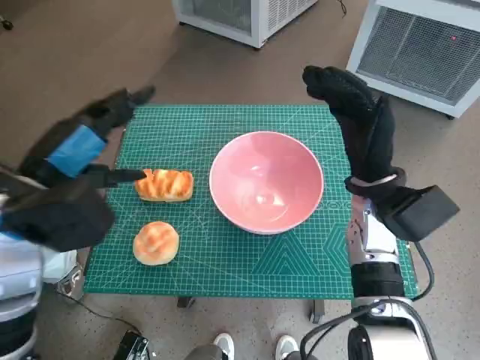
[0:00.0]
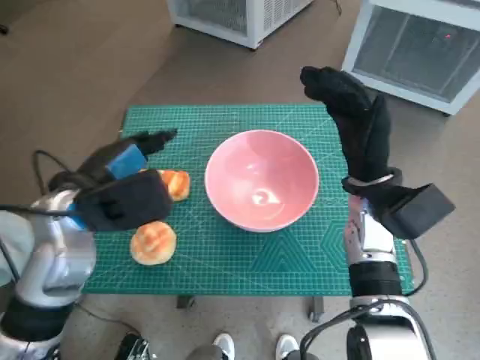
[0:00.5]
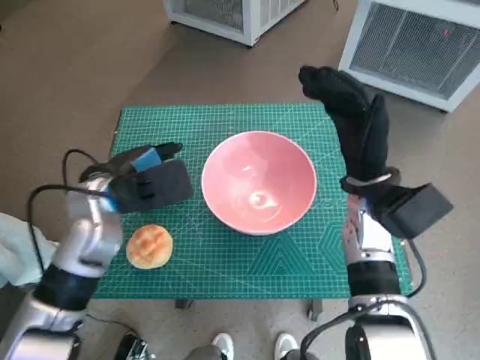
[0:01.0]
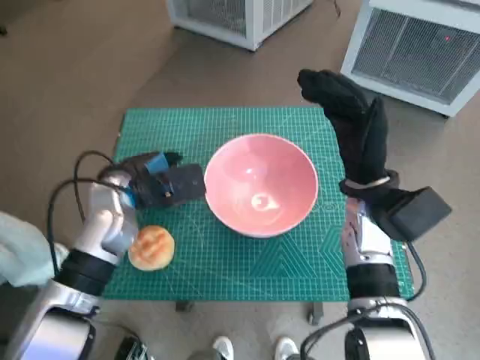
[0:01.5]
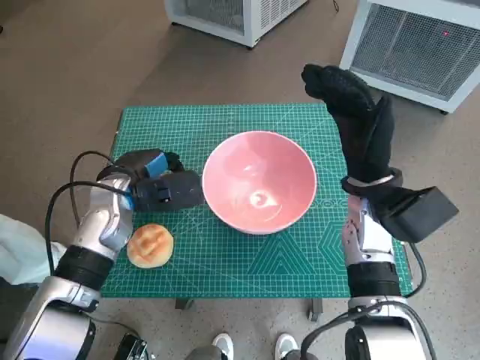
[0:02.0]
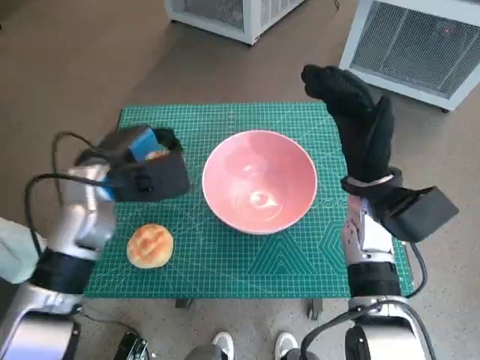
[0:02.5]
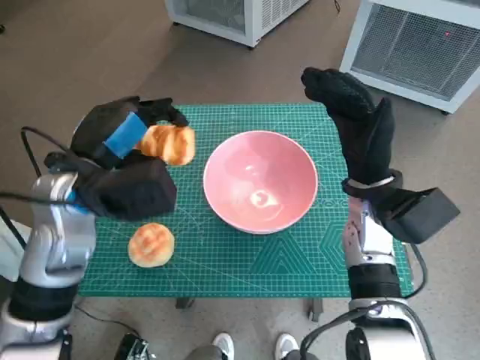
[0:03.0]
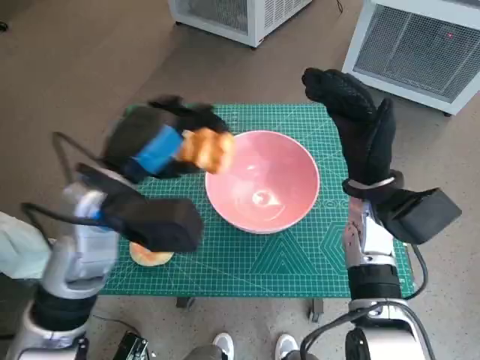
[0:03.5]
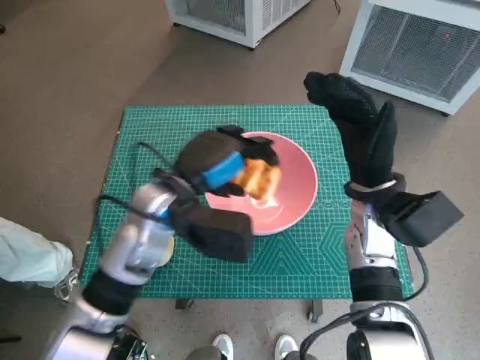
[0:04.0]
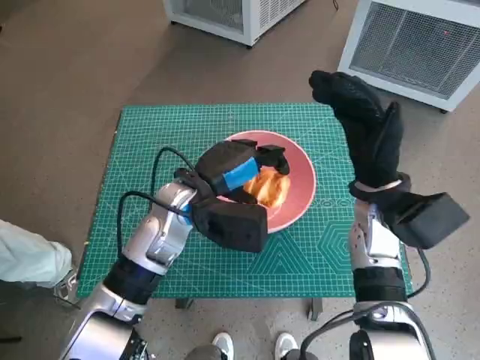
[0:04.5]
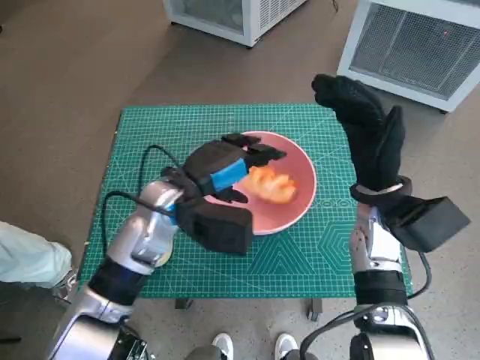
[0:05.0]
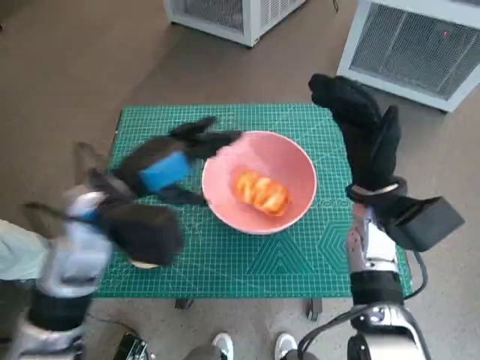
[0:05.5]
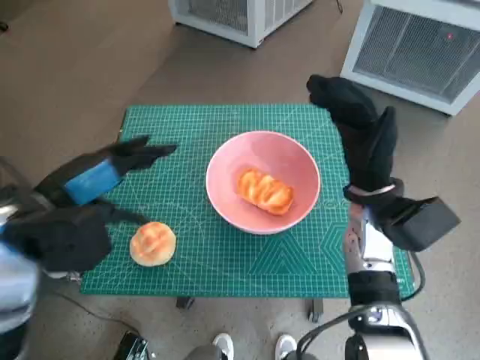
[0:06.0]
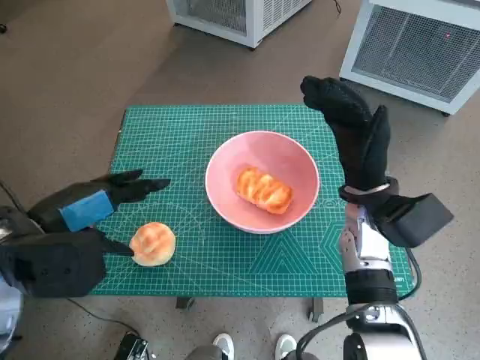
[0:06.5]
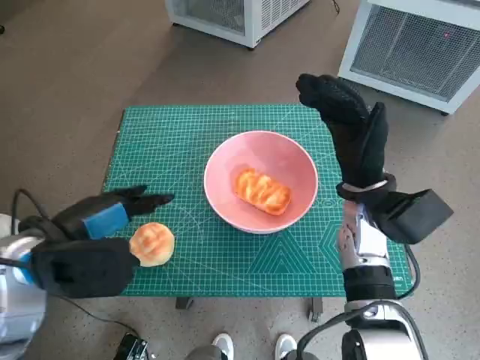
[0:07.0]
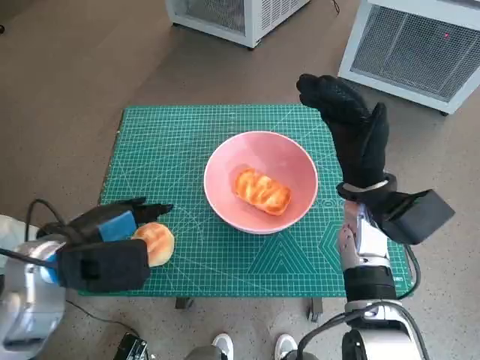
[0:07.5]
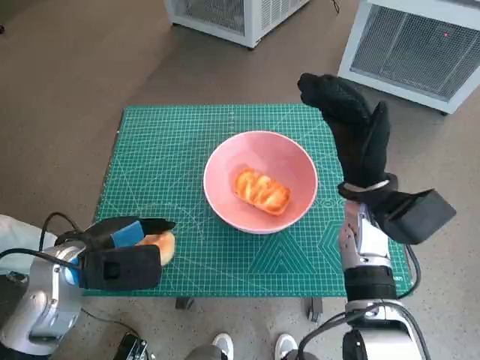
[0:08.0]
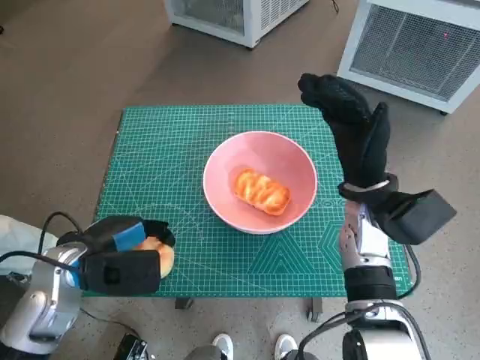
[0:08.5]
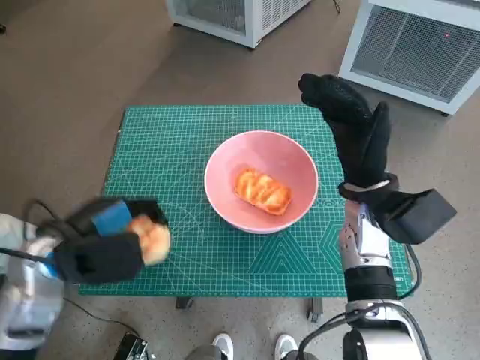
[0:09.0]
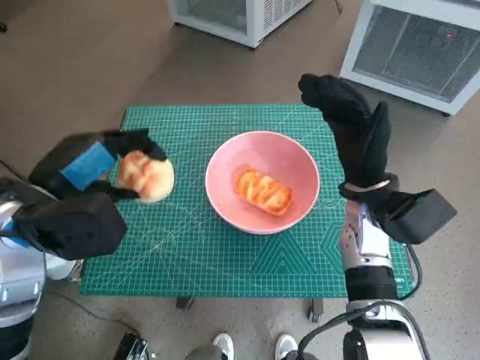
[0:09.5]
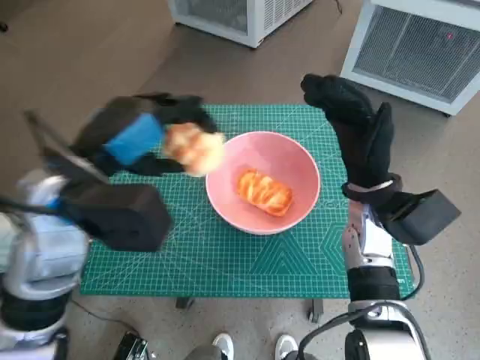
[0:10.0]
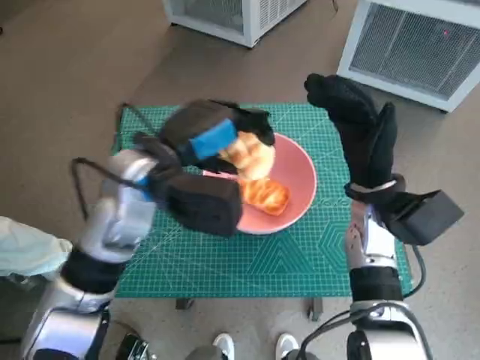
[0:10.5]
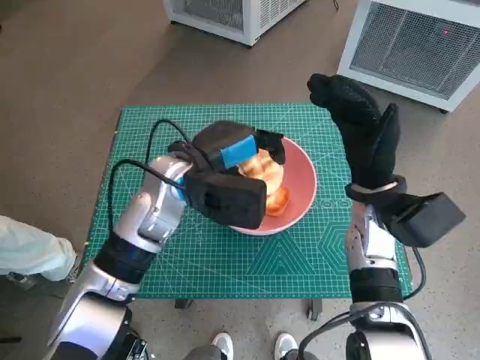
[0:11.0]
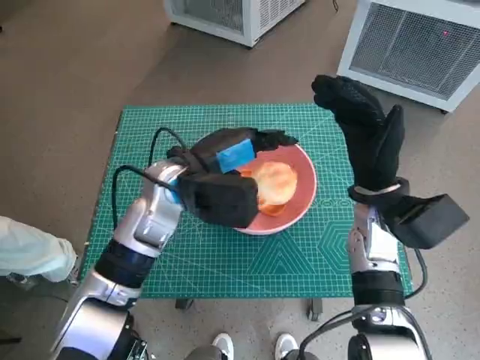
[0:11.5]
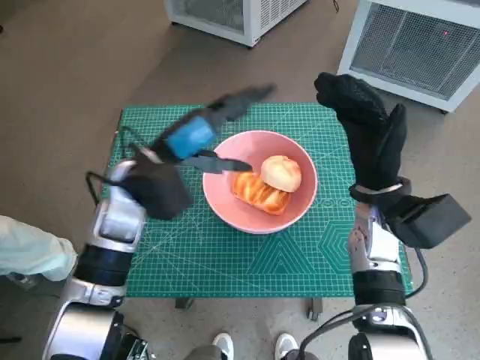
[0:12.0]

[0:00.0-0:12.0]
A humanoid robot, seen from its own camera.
Task of the whole recording: Push the bowl into the center of the table and put the bread into the bowl.
Step, 0:00.0 to 0:02.0: Grasp the long bread with left hand.
Step, 0:02.5 to 0:04.5: Place the long bread in pink bowl with left hand.
Step, 0:05.0 to 0:08.0: Grasp the round bread with left hand.
Step, 0:08.5 to 0:11.0: Place the round bread in pink bowl with left hand.
0:00.0 to 0:02.0: The left hand shifts approximately 15 cm downward and forward.
0:02.0 to 0:04.0: The left hand heads to the right and upward, covering some 10 cm.
0:04.0 to 0:06.0: The left hand heads to the left and backward, covering about 15 cm.
0:06.0 to 0:08.0: The left hand travels downward by about 10 cm.
0:08.0 to 0:10.0: The left hand goes roughly 10 cm upward.
0:10.0 to 0:12.0: The left hand goes about 10 cm forward and downward.

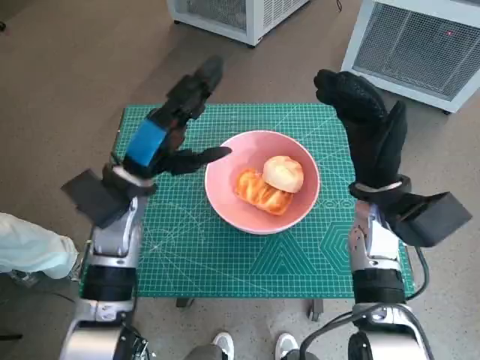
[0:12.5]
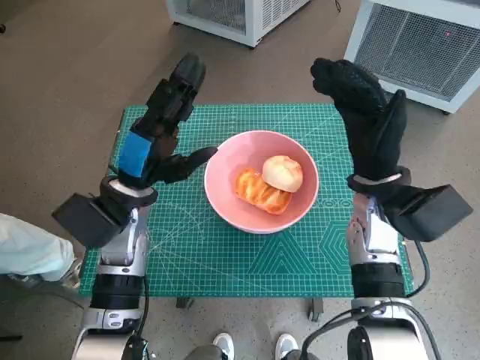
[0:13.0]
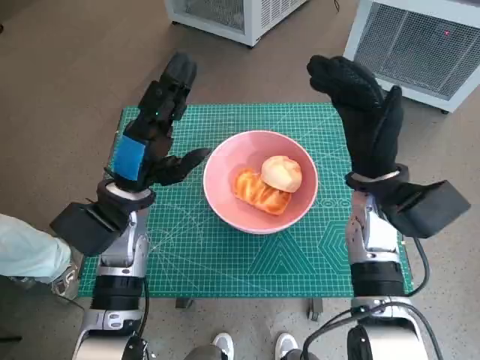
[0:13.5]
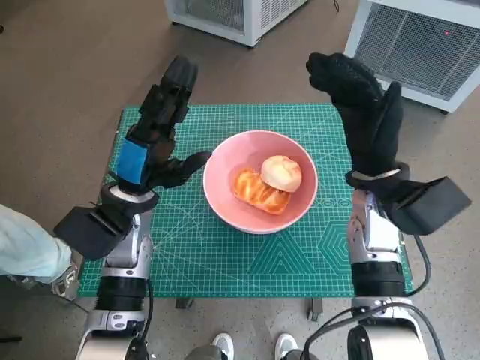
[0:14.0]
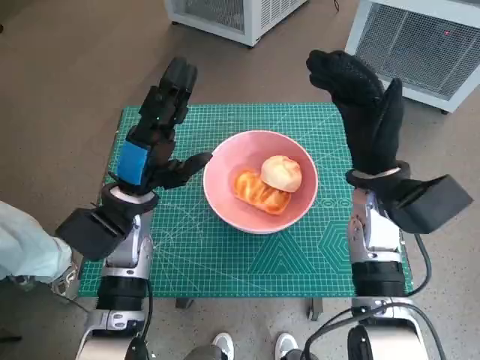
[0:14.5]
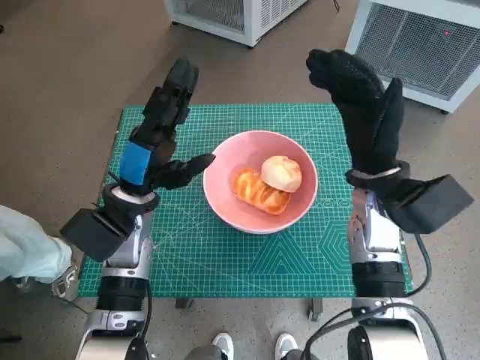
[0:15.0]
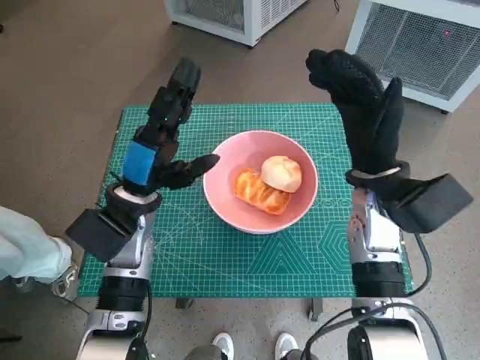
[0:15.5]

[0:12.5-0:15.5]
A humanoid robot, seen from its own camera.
Task of the whole recording: Push the bowl into the center of the table and put the bread into the bowl.
0:14.0 to 0:15.5: Both hands stay put.

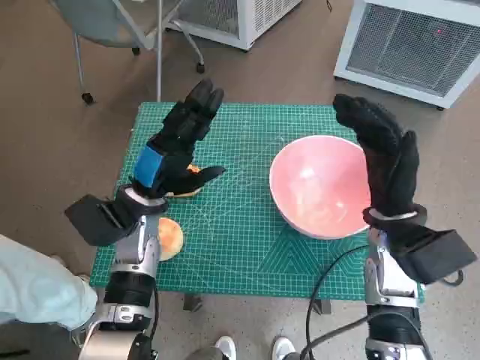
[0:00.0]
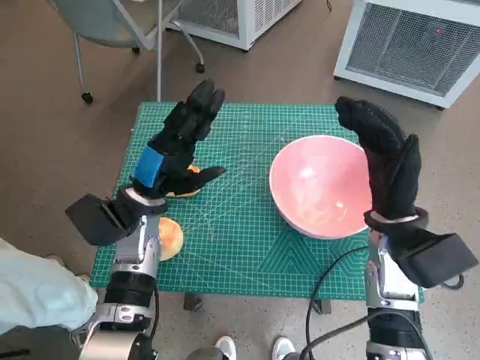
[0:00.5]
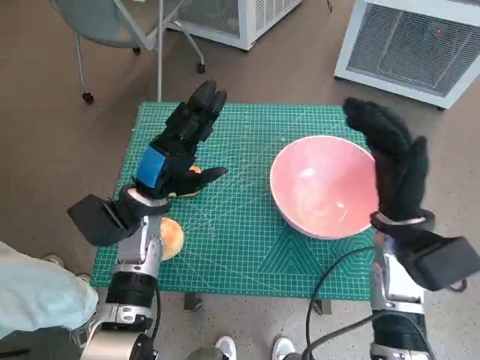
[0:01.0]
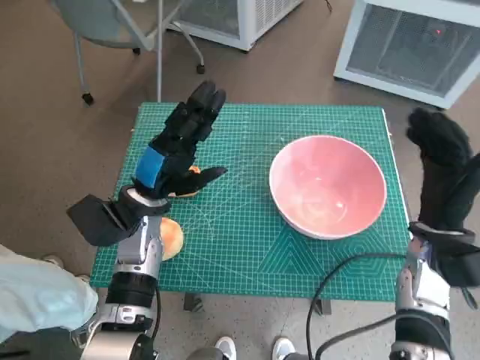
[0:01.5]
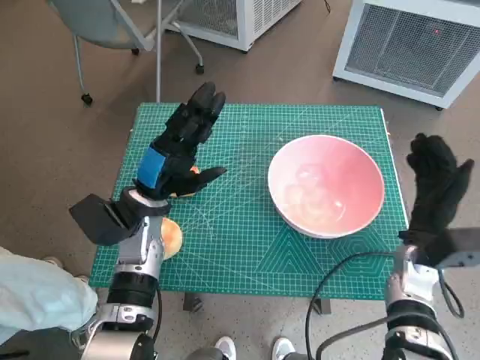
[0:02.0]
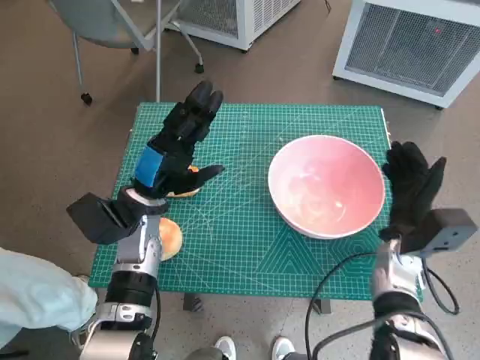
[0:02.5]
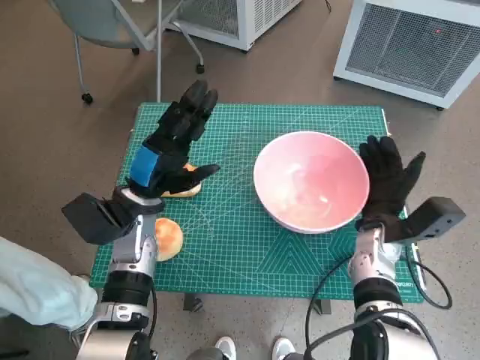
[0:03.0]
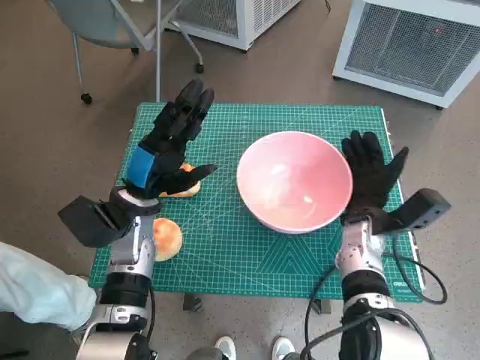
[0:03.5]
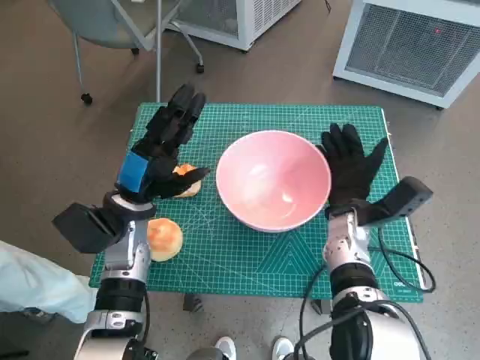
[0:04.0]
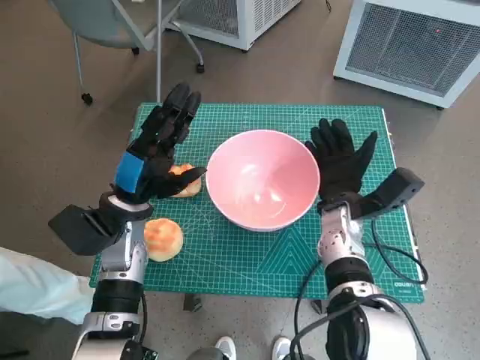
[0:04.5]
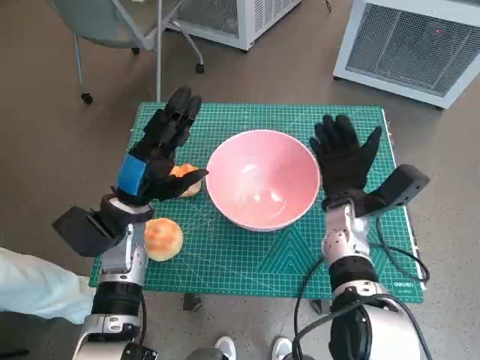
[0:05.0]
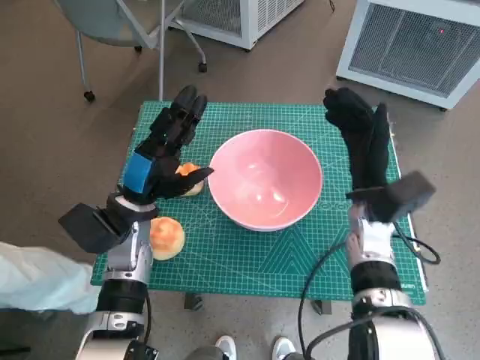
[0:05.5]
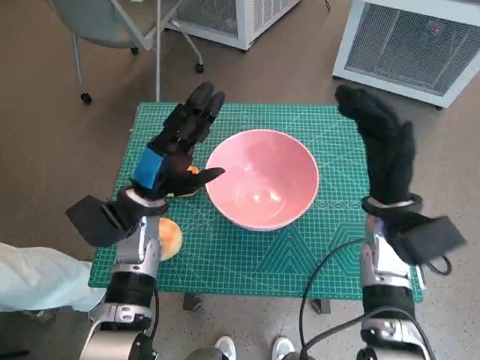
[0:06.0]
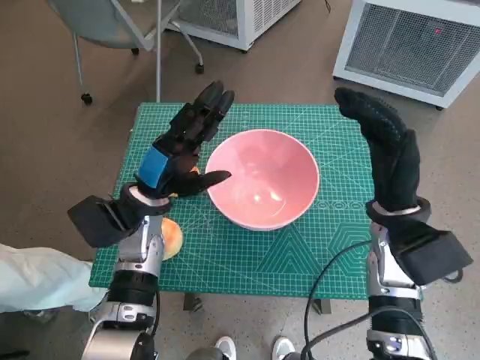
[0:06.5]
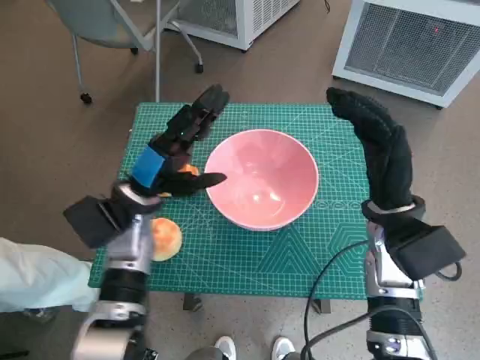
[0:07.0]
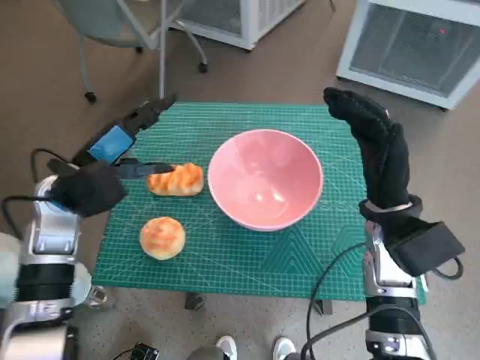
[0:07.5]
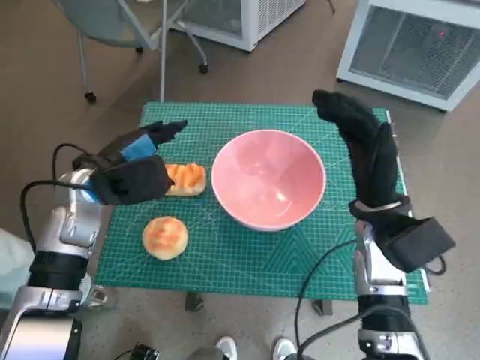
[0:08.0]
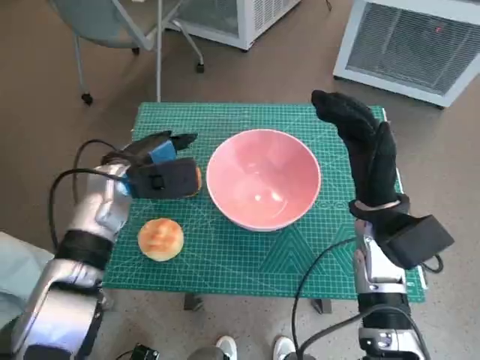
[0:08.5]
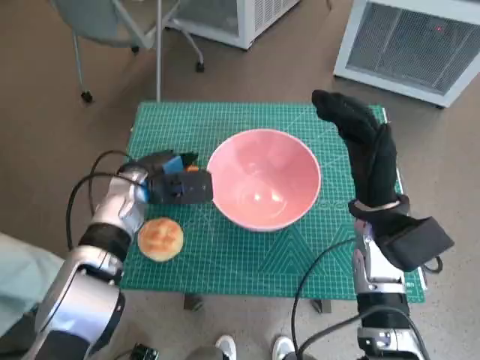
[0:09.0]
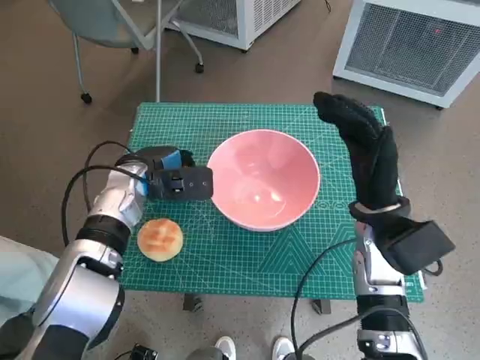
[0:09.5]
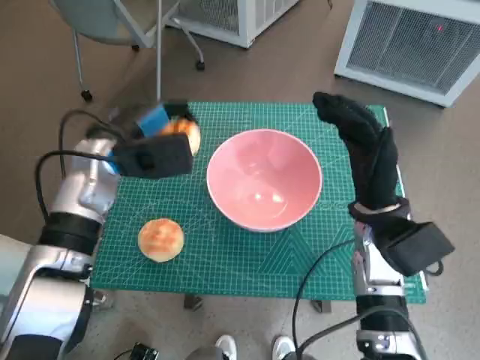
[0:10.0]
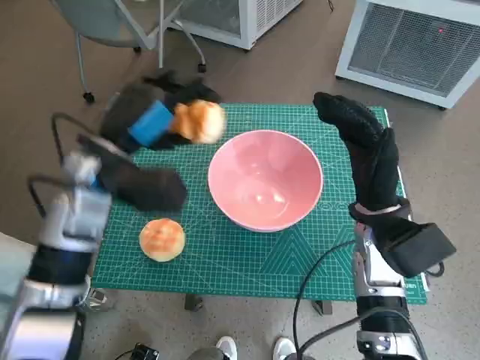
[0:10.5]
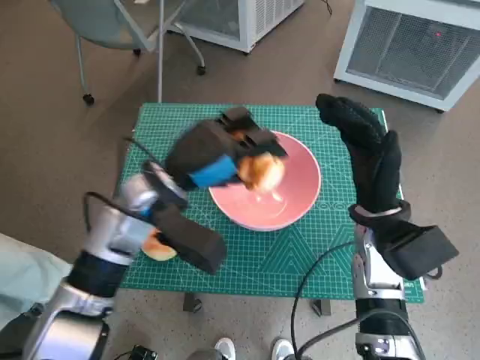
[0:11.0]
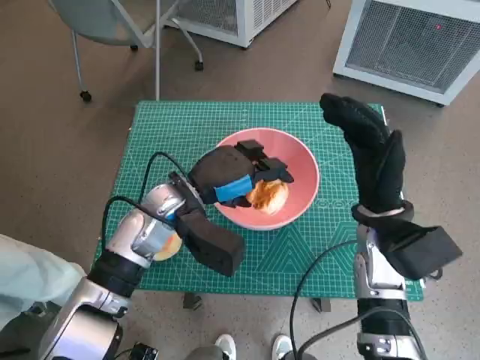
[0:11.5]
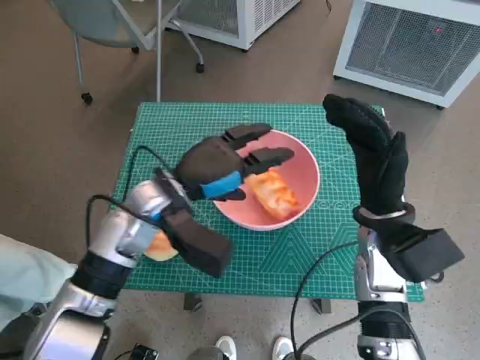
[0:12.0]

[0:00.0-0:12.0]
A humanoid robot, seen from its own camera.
Task of the whole recording: Push the bowl into the center of the table and put the bread into the bowl.
Step, 0:00.0 to 0:04.5: Move the pink bowl to the center of table with right hand.
Step, 0:05.5 to 0:09.0: Grasp the long bread with left hand.
Step, 0:09.5 to 0:11.5: Place the long bread in pink bowl with left hand.
0:02.0 to 0:04.0: The right hand travels to the left by approximately 10 cm.
0:04.0 to 0:06.0: The right hand shifts some 5 cm upward.
0:06.0 to 0:08.0: The left hand heads upward and to the left, covering approximately 5 cm.
0:10.0 to 0:12.0: The left hand goes some 10 cm to the right and backward.
